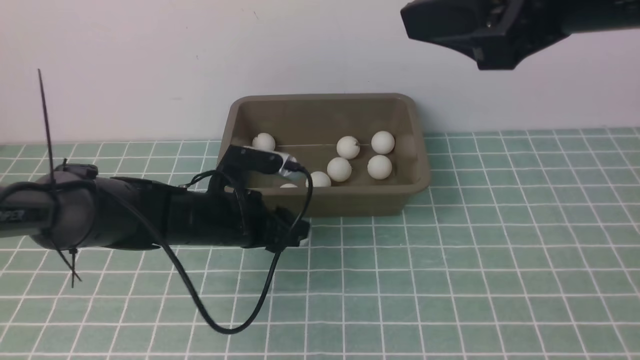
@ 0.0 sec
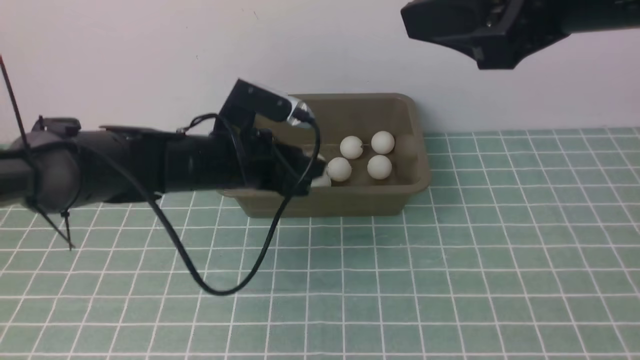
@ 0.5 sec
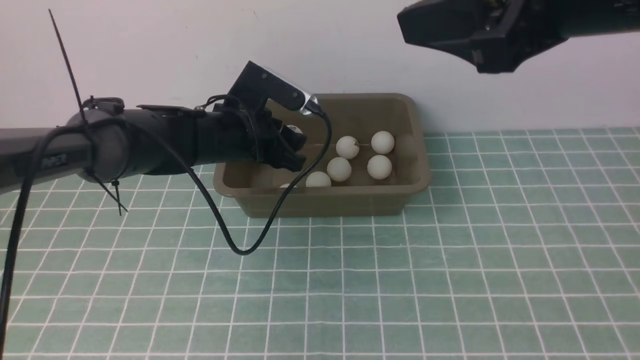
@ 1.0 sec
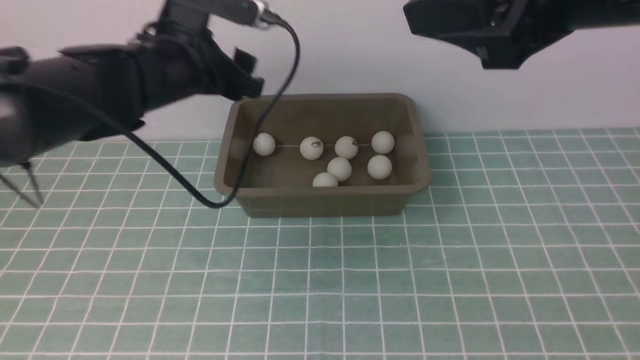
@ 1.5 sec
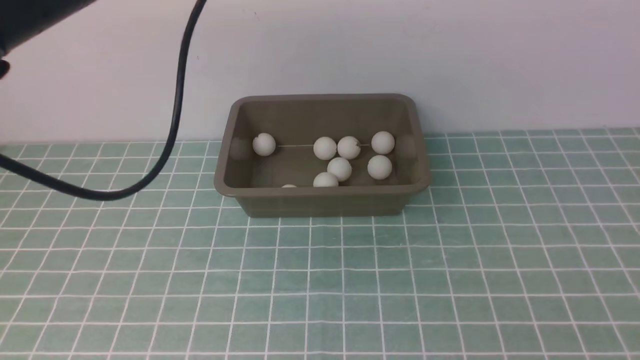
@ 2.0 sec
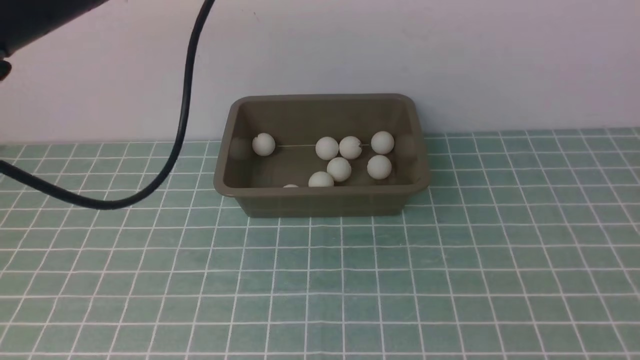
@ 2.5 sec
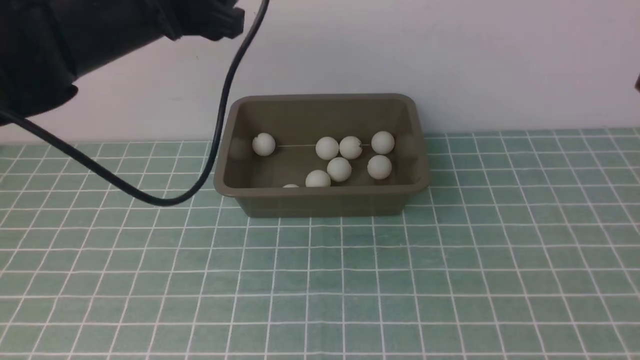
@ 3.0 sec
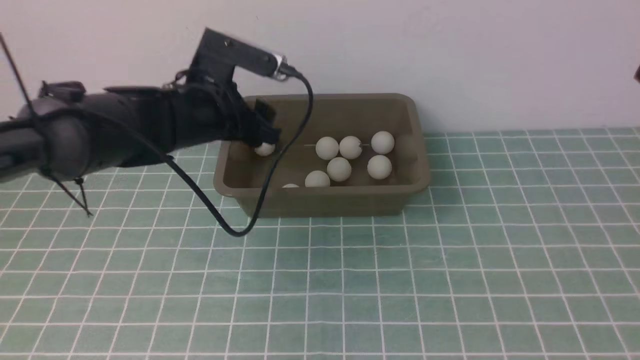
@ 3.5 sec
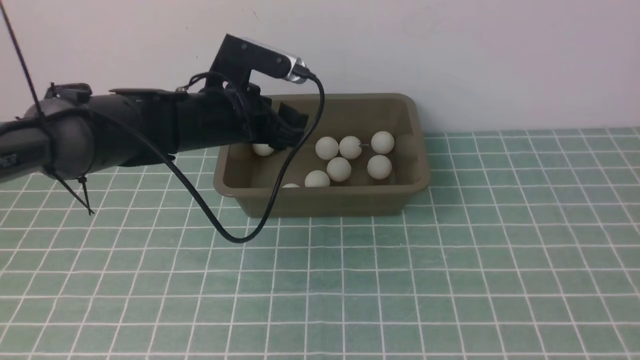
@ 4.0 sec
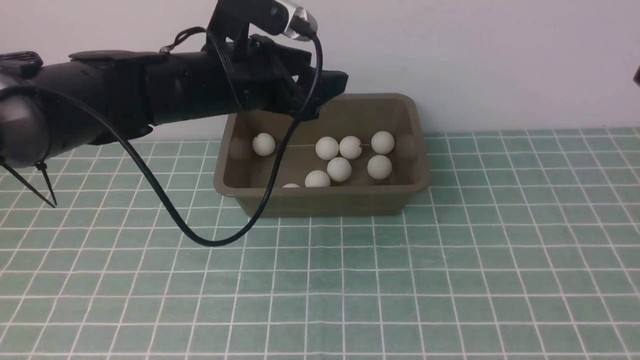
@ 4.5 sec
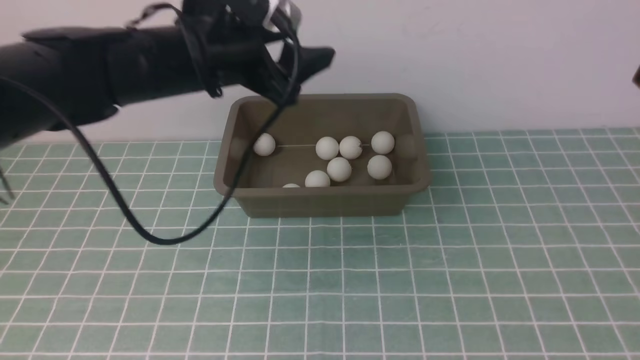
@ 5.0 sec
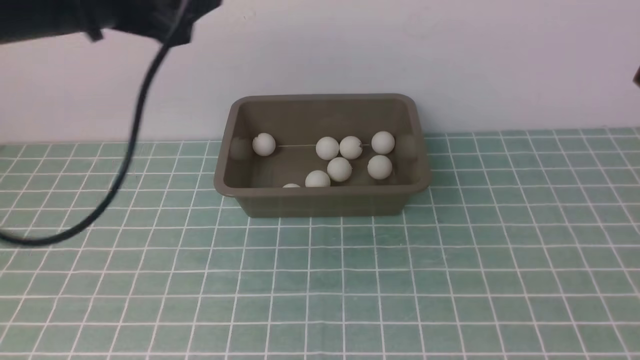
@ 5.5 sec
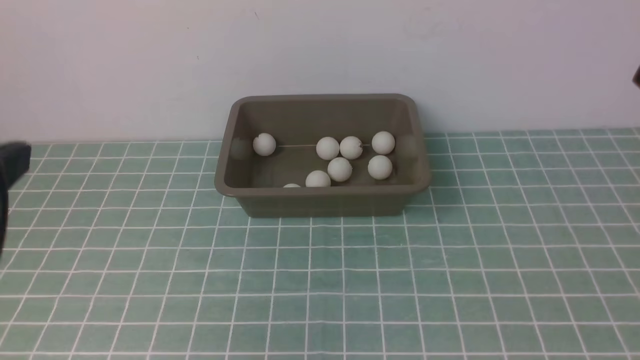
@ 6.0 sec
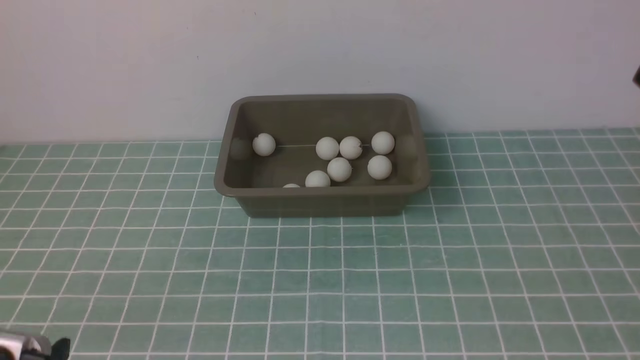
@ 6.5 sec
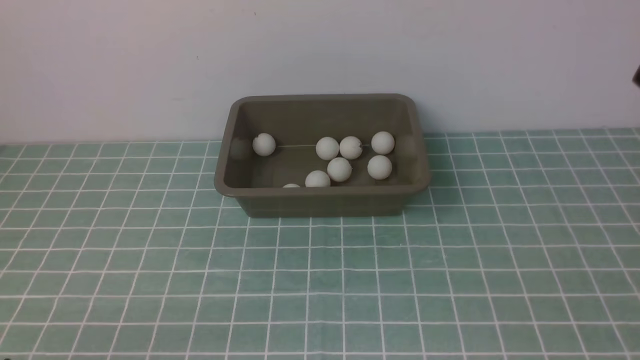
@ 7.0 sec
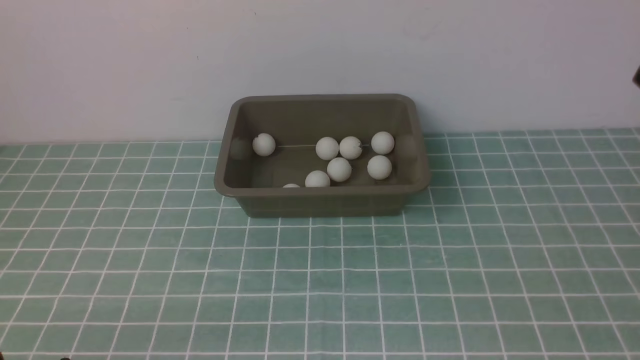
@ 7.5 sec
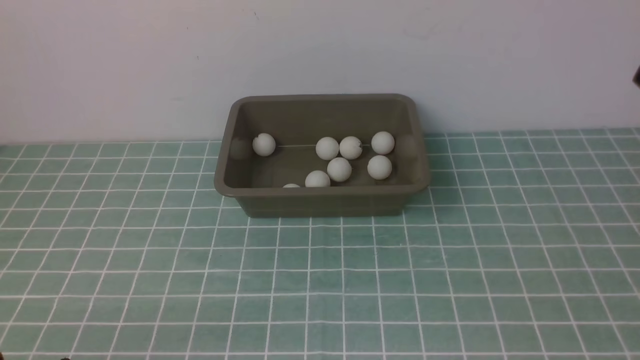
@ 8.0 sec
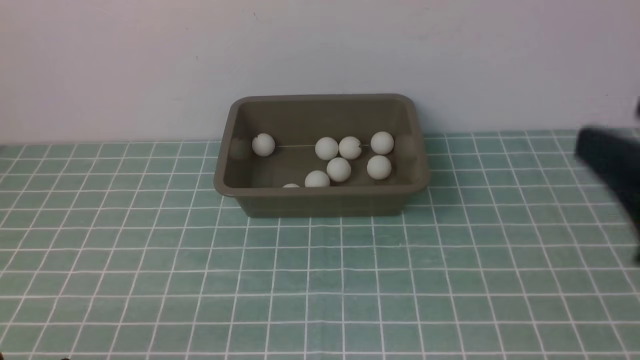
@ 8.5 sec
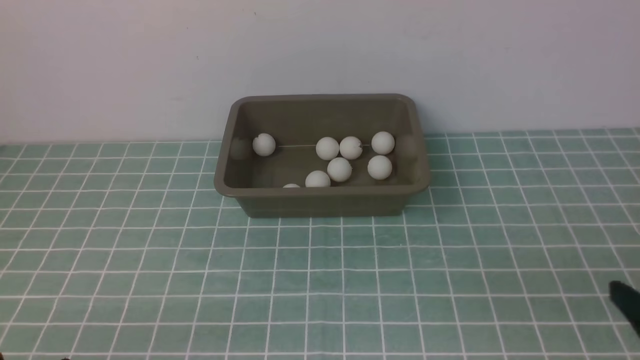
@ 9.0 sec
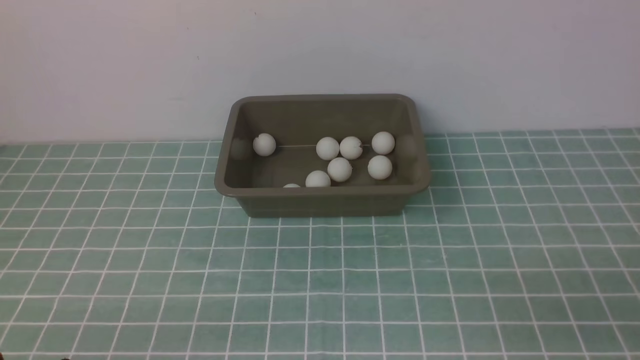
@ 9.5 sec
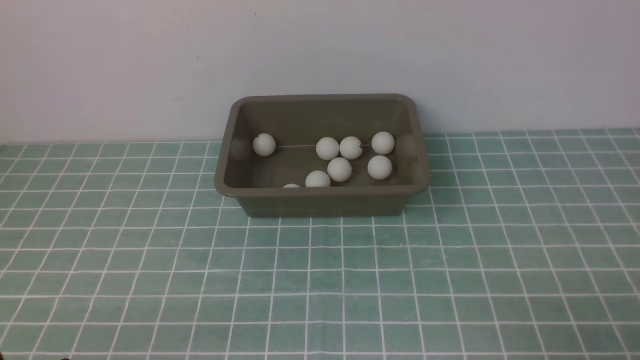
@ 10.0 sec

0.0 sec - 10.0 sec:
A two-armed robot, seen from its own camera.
Step, 0.5 sec - 1.0 sec: use the left arm to put the table tennis ball into the box.
0.0 sec - 2.0 sec: The right gripper moves some 5 cm; the left gripper travels upward by roughly 25 cm, and opens up.
2.0 sec - 4.0 sec: The left gripper goes roughly 15 cm downward, forward and to the right. The right gripper moves downward and backward, approximately 10 cm.
4.0 sec - 6.0 sec: The left gripper goes roughly 30 cm backward, to the left and upward.
6.0 sec - 8.0 sec: The left gripper goes about 25 cm downward and backward.

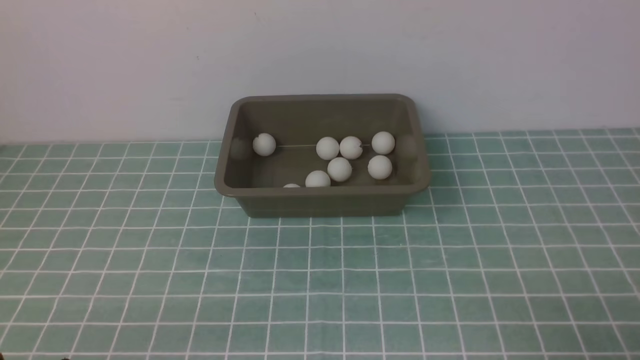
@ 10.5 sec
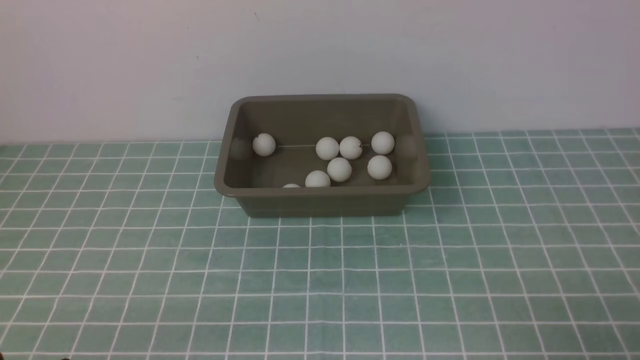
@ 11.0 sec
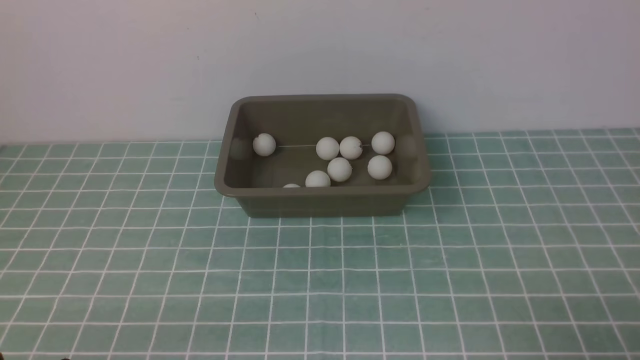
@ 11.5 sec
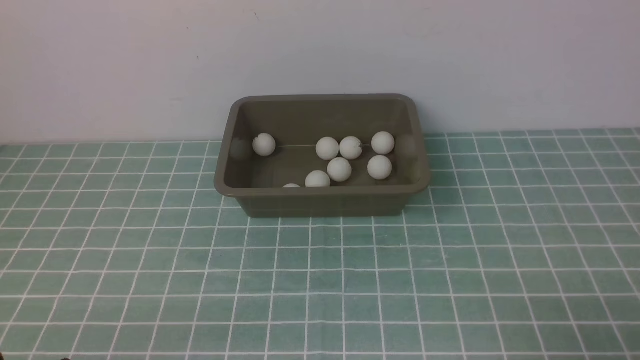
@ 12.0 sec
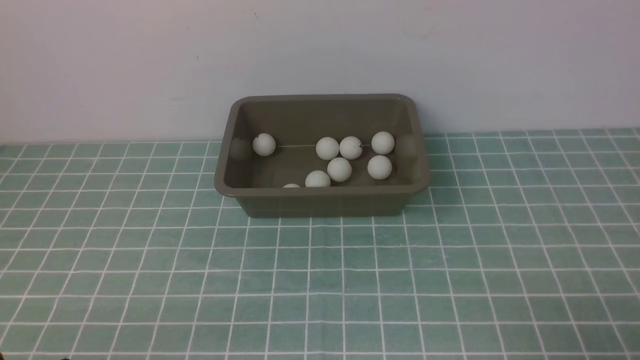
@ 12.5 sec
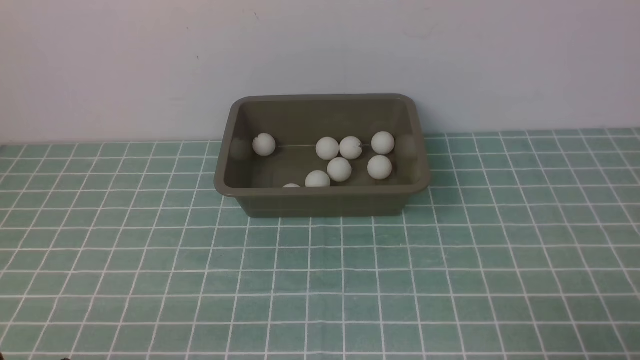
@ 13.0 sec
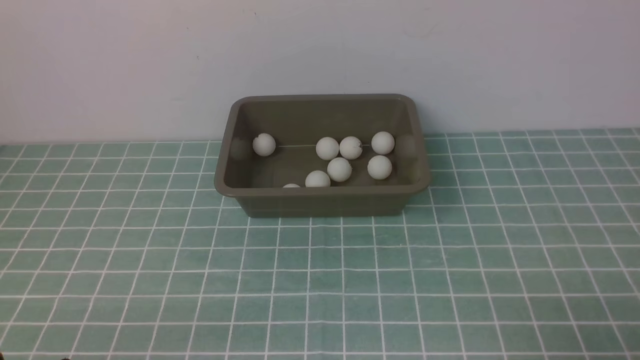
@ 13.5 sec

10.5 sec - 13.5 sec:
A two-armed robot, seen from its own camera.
10.5 sec - 13.5 sec: Neither gripper changes place.
